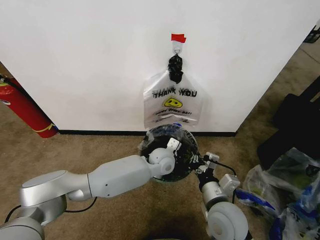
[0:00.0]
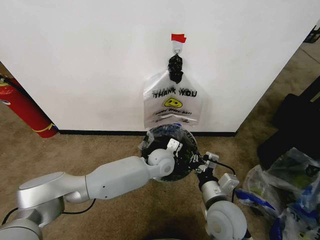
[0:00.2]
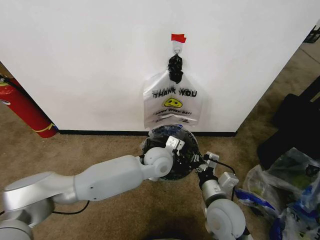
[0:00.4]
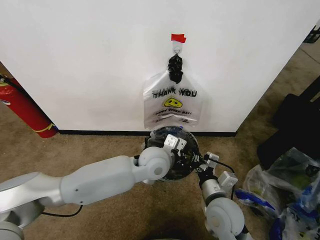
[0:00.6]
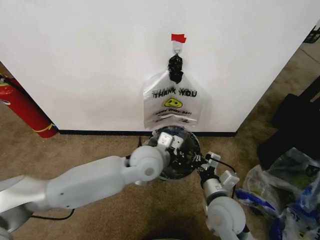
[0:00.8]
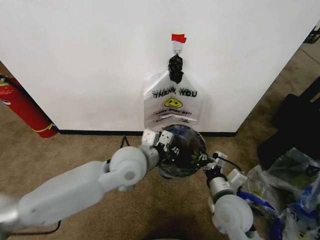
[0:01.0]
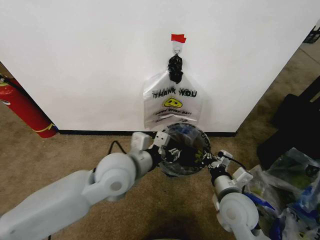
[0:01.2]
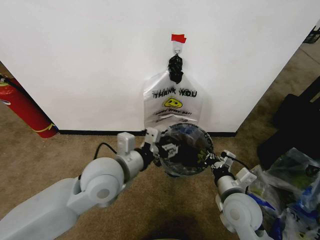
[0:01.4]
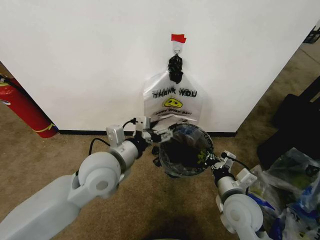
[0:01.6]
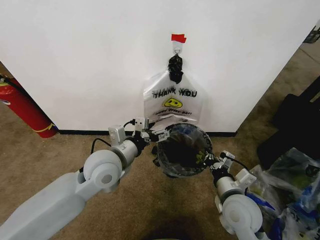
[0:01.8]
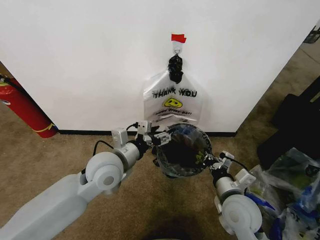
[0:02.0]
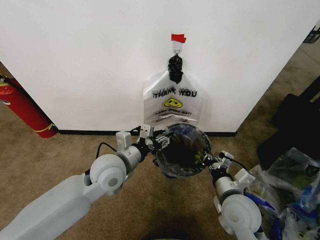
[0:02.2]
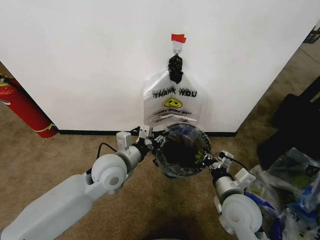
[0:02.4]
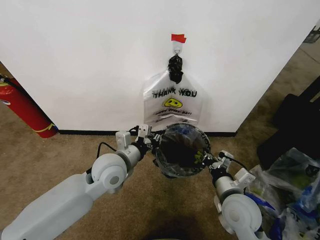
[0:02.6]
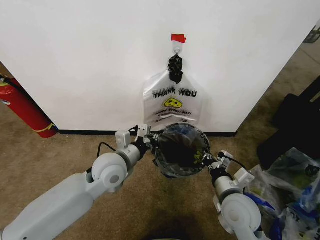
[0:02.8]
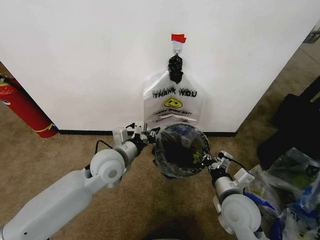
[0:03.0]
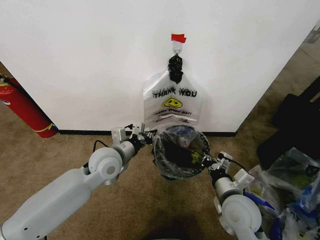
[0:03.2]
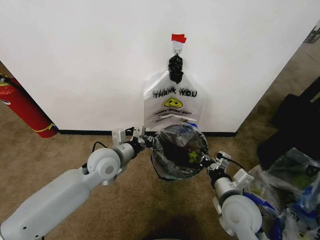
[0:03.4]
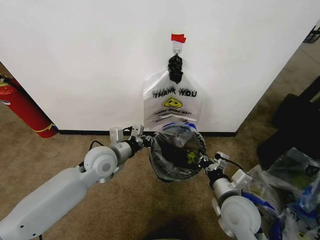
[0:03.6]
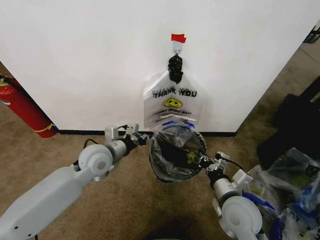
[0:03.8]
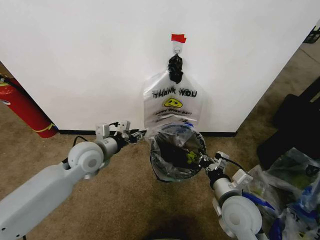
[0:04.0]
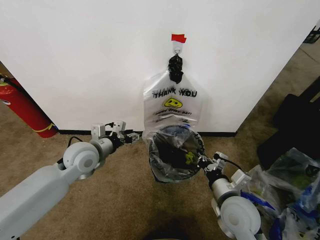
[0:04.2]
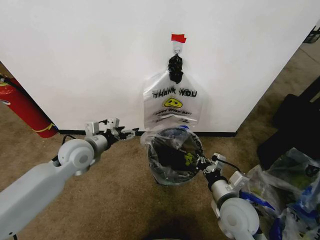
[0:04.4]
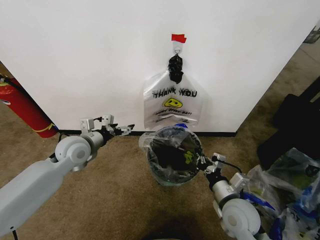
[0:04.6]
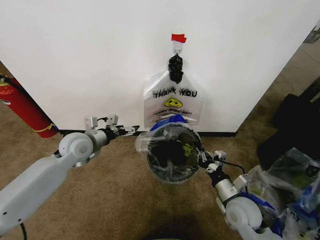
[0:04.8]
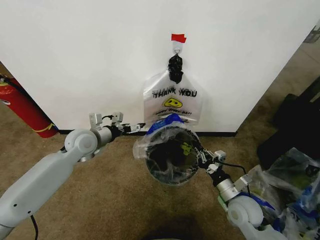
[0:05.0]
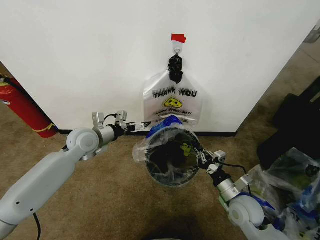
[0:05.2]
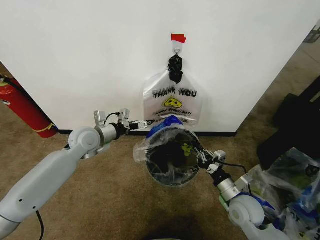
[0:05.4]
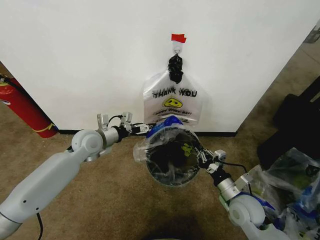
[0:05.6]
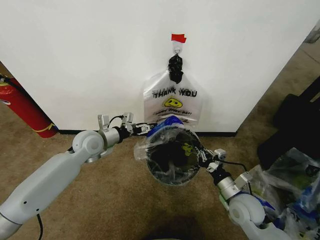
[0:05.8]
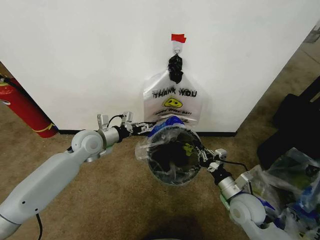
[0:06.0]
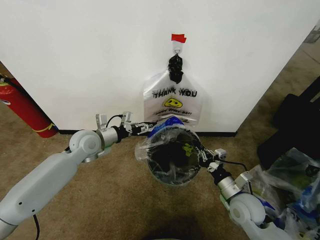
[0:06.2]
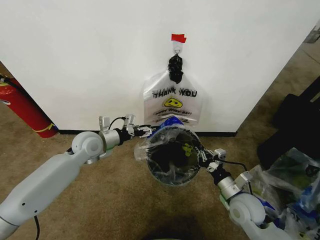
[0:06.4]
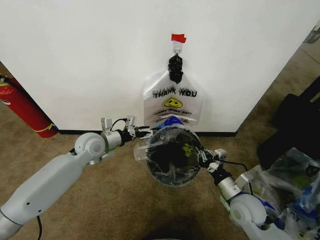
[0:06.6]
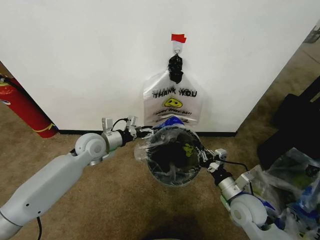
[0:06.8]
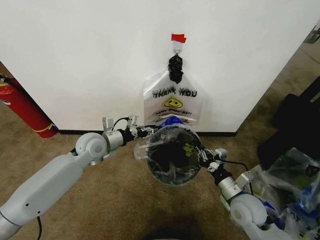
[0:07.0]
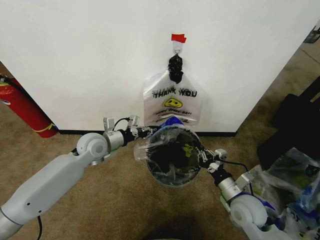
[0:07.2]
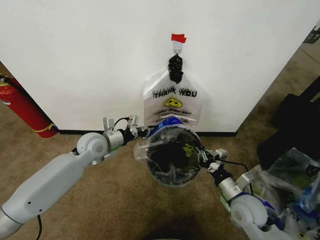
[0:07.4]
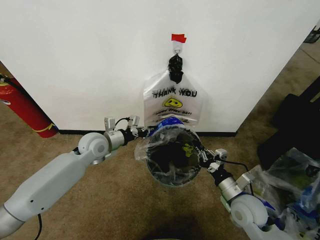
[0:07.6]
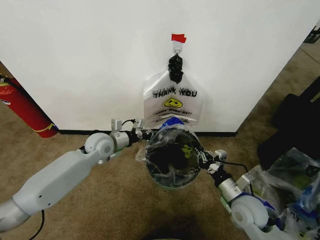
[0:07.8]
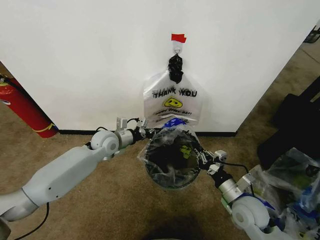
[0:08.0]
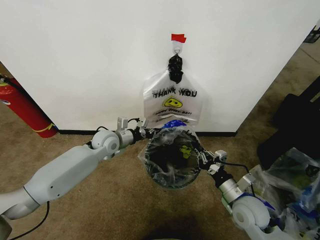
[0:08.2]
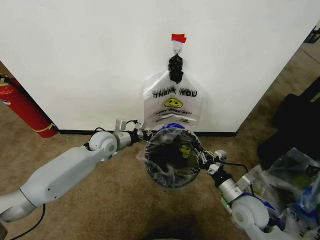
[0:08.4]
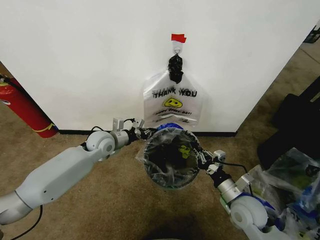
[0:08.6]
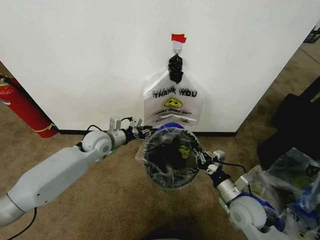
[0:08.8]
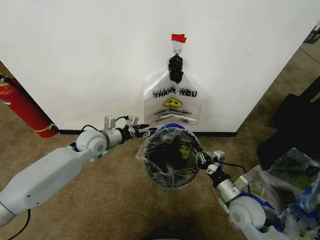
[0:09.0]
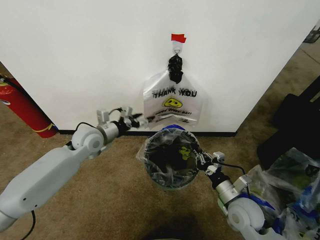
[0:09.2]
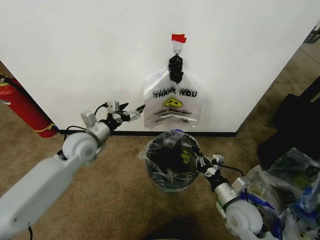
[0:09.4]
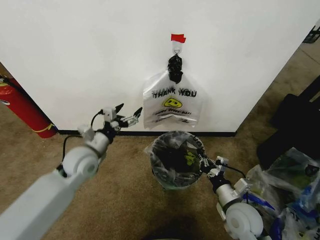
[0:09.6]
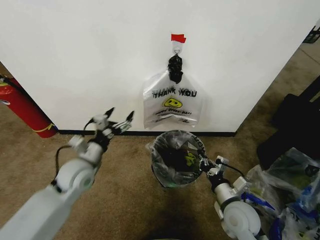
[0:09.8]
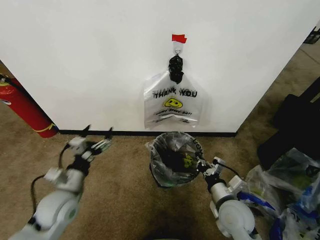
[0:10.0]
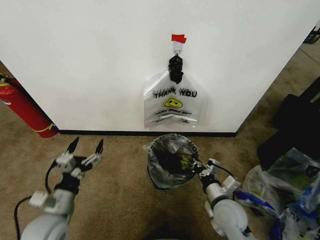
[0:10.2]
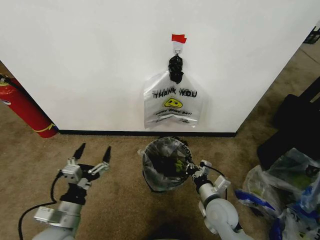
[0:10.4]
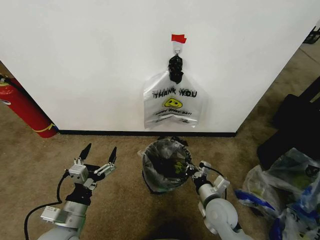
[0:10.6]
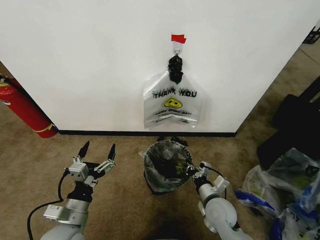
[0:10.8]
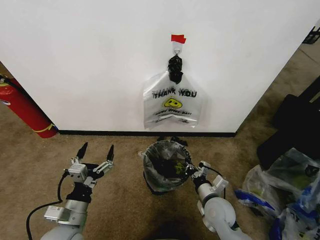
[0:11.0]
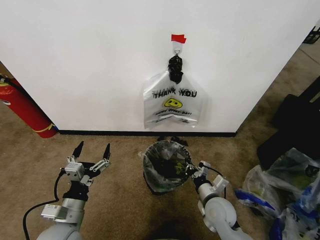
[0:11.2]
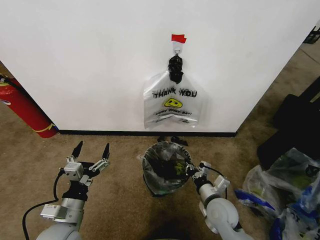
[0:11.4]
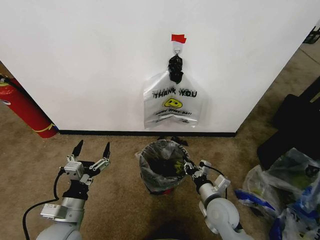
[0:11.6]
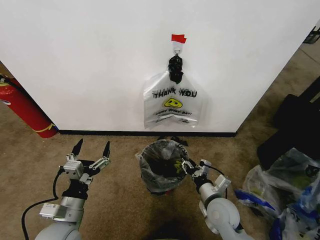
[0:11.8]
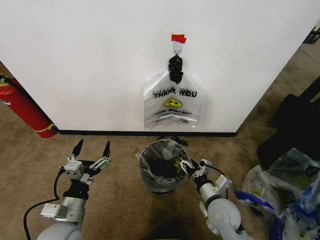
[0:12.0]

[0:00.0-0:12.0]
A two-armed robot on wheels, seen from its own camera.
Task of the whole recording: Pick up the garbage bag from the wall and place it over the trash bin.
0:00.0 to 0:01.6: The left gripper goes about 25 cm to the left, upward and backward, and opens its fingers; the right gripper heads to the right, covering approximately 5 cm.
0:01.6 to 0:03.0: The left gripper shifts some 10 cm downward and forward, and closes its fingers.
0:03.0 to 0:04.4: The left gripper moves to the left, some 10 cm, and opens its fingers.
0:04.4 to 0:06.0: The right gripper travels to the right by some 5 cm; the left gripper is displaced forward by some 5 cm.
0:06.0 to 0:07.6: The left gripper closes its fingers.
0:07.6 to 0:09.0: The left gripper opens up.
0:09.0 to 0:10.4: The left gripper shifts about 25 cm backward, and opens up; the right gripper moves to the left, approximately 5 cm.
0:10.4 to 0:12.0: The right gripper opens its fingers.

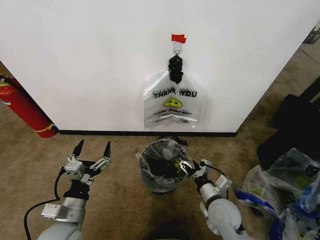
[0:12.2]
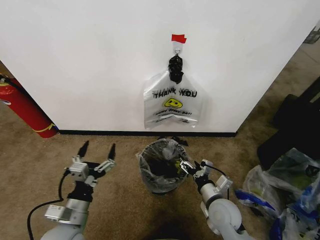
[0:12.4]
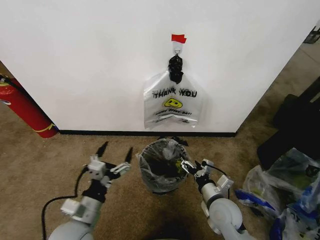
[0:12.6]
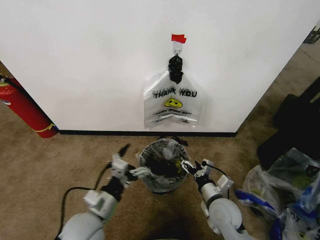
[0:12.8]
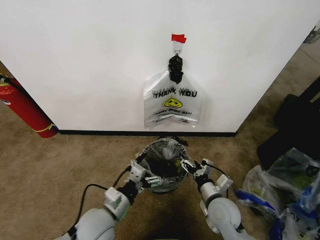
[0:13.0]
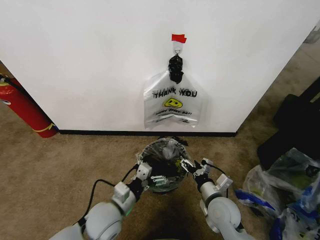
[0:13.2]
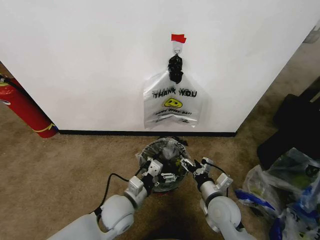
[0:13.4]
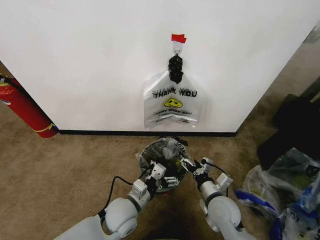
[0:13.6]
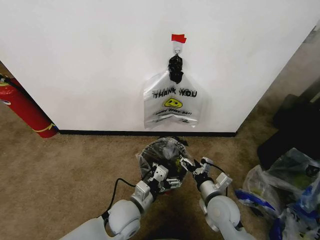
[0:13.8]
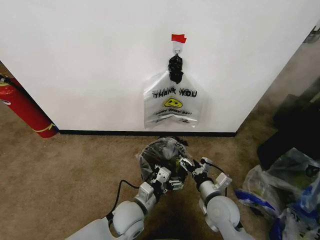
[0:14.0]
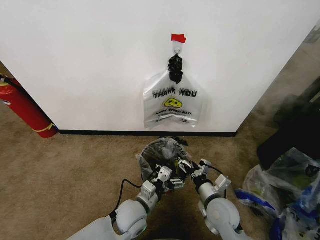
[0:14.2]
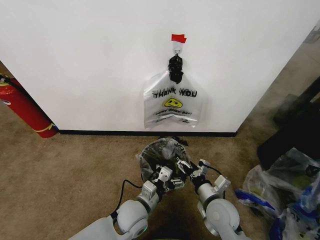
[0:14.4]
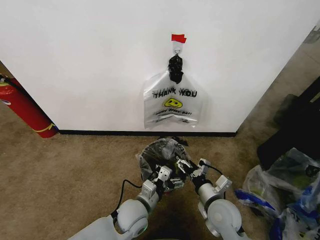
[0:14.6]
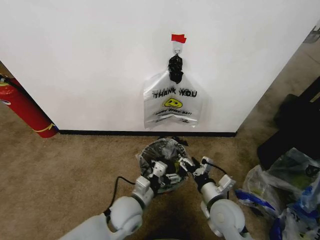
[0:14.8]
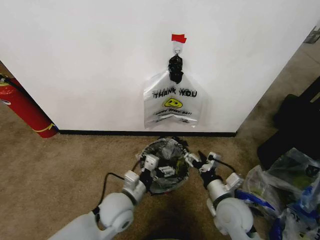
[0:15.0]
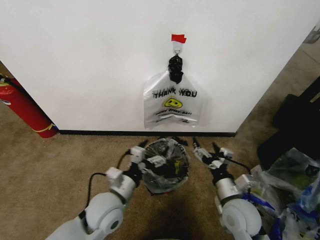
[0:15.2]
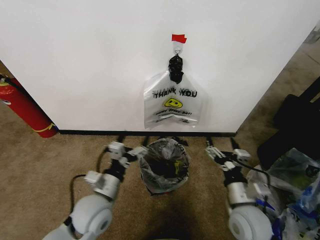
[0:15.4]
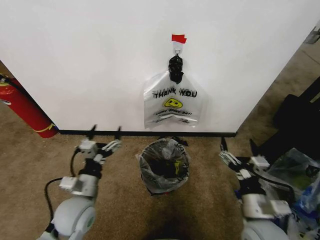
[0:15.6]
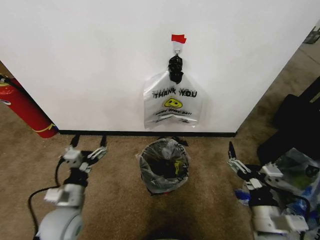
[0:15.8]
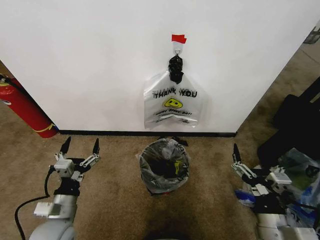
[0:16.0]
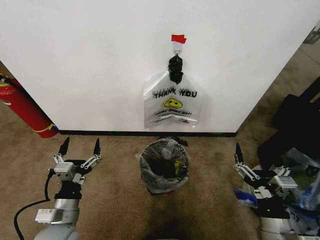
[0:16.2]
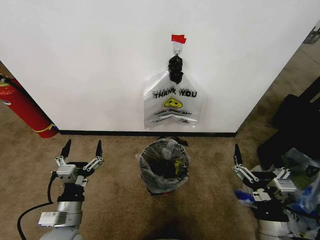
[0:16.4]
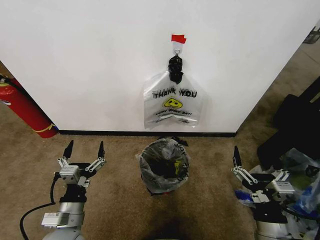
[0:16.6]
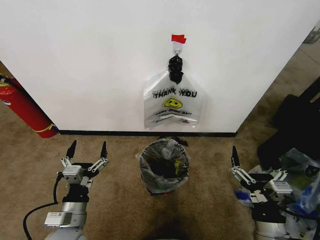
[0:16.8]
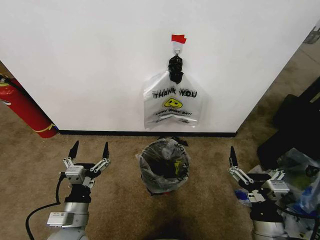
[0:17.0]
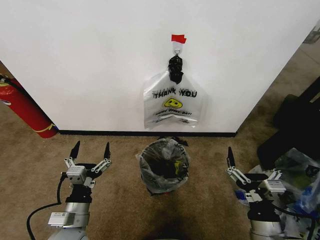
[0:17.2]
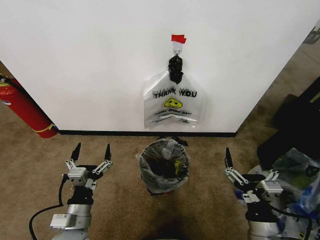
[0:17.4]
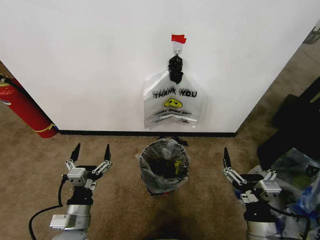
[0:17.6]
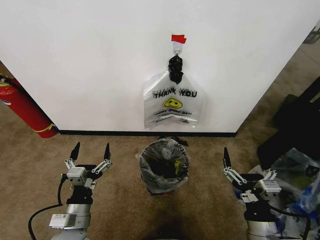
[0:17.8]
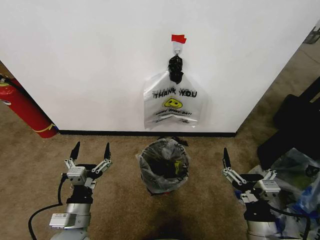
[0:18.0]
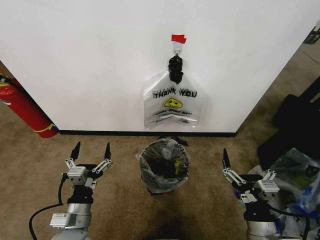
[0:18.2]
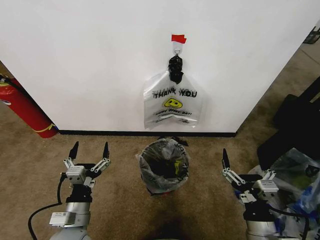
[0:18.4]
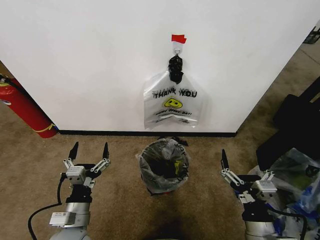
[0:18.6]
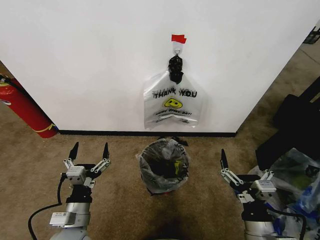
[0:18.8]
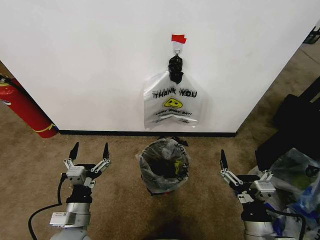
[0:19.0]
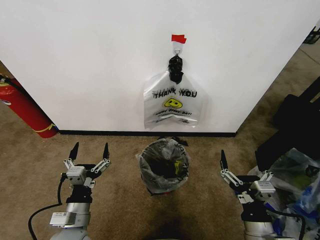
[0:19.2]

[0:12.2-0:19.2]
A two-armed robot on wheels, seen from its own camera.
Task of the whole recording: Pick up the garbage bag from the wall and place it over the trash bin.
0:12.2 to 0:13.6: The left gripper heads to the right and forward, covering approximately 15 cm.
0:13.6 to 0:15.0: The grippers make only small movements.
0:15.0 to 0:16.4: The right gripper moves backward, approximately 10 cm. Meanwhile the left gripper goes some 15 cm to the left and backward.
0:16.4 to 0:17.8: The grippers make only small movements.
0:17.8 to 0:19.2: Neither gripper changes place.

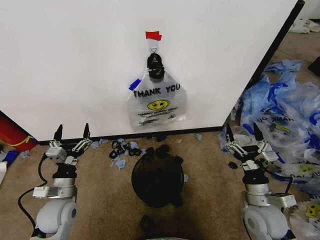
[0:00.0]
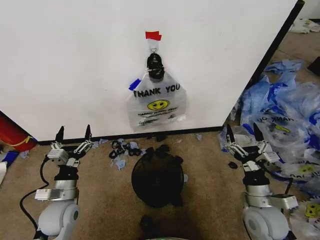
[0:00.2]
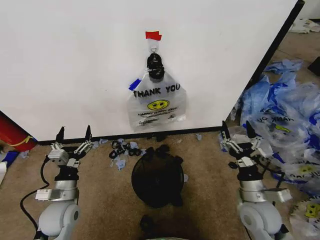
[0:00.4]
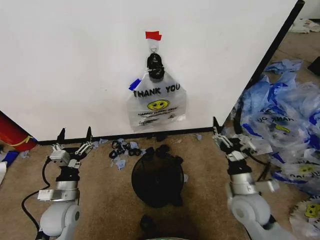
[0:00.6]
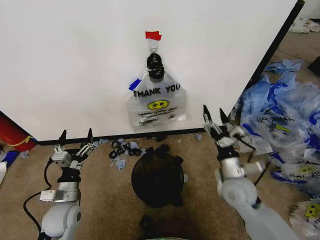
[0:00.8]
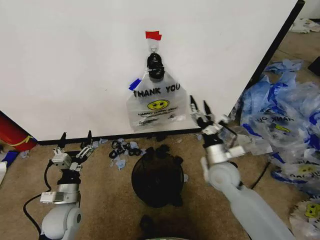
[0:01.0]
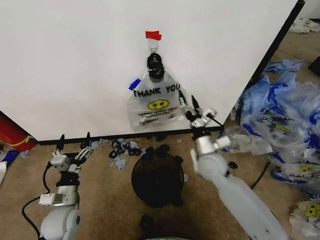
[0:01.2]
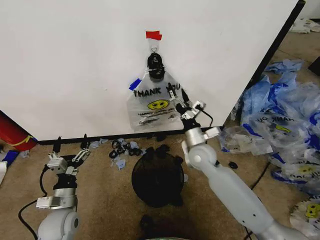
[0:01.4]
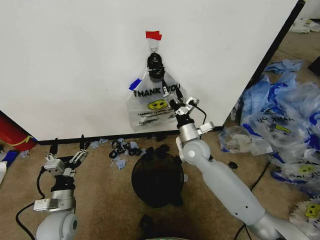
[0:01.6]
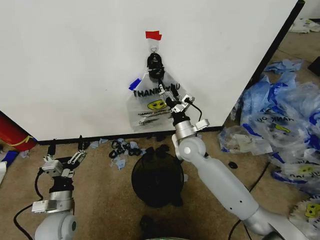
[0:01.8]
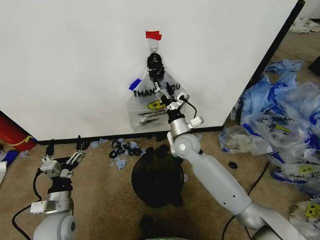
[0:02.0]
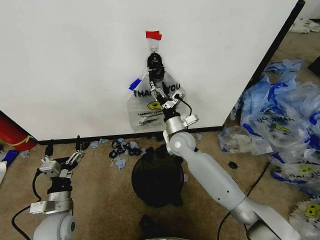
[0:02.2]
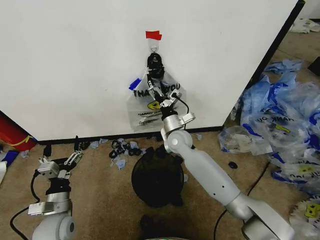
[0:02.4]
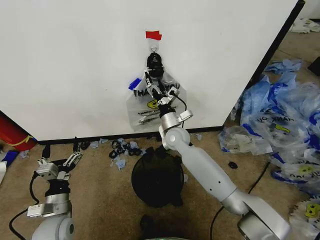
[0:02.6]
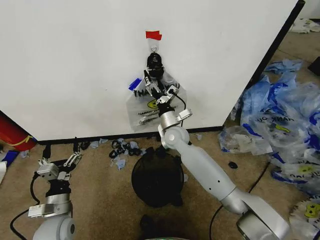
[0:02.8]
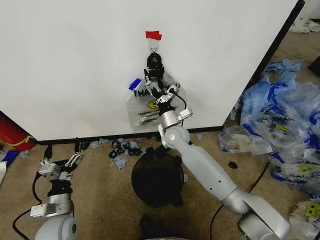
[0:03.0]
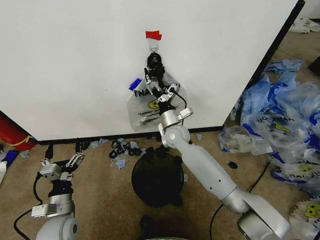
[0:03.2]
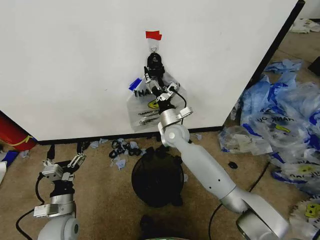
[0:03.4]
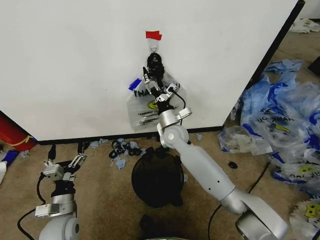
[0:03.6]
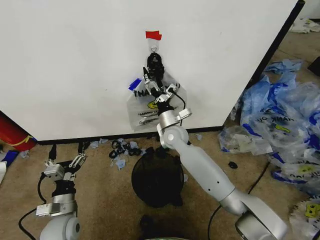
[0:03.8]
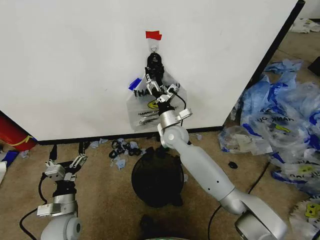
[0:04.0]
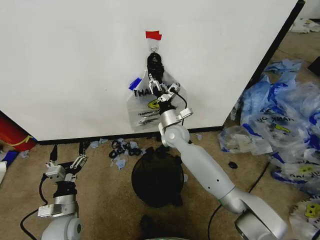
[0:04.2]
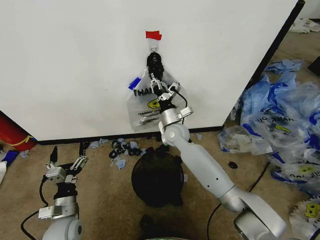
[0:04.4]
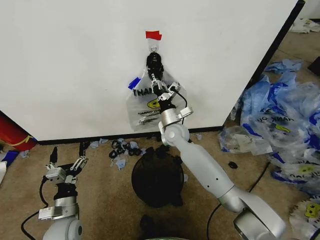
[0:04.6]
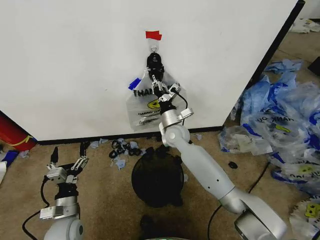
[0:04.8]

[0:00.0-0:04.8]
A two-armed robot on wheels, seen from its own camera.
Task of the whole recording: Pick up the garbage bag from the wall and place it over the trash bin.
0:01.6 to 0:03.2: The right gripper travels forward and to the left by some 10 cm.
0:03.2 to 0:04.8: The right gripper closes.
